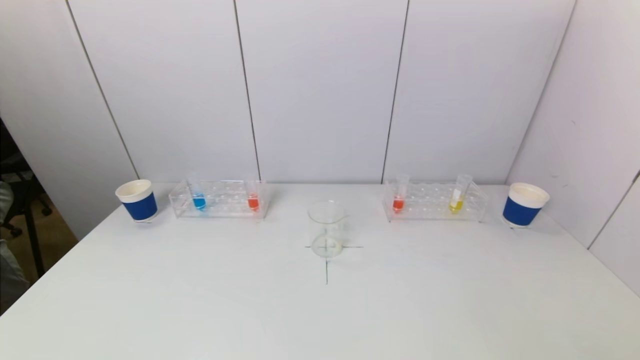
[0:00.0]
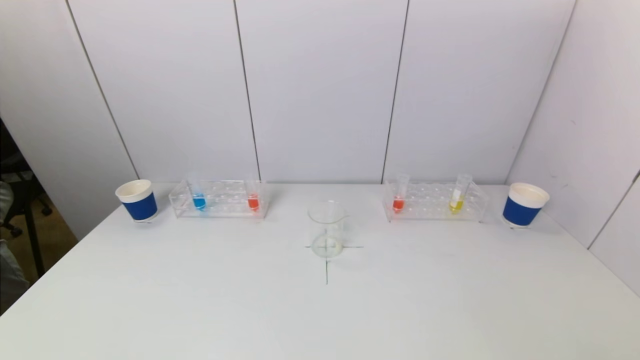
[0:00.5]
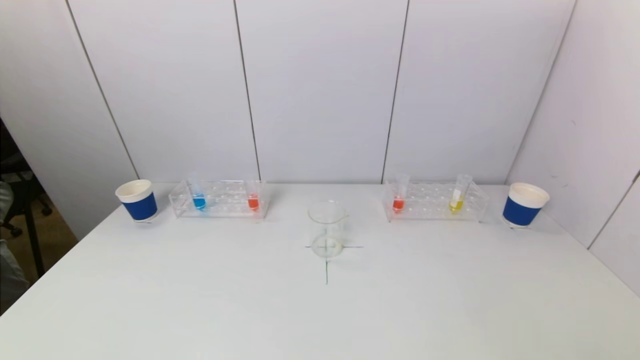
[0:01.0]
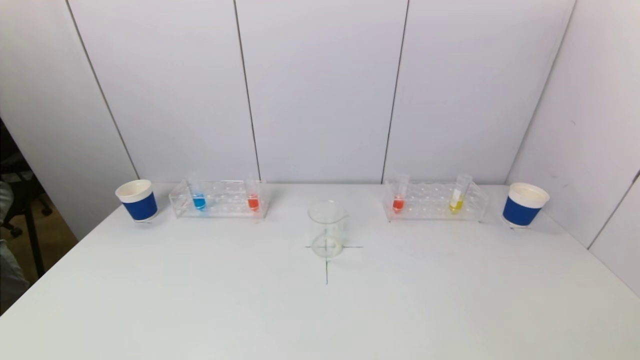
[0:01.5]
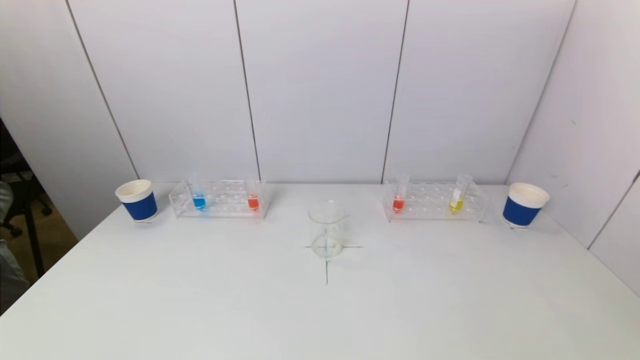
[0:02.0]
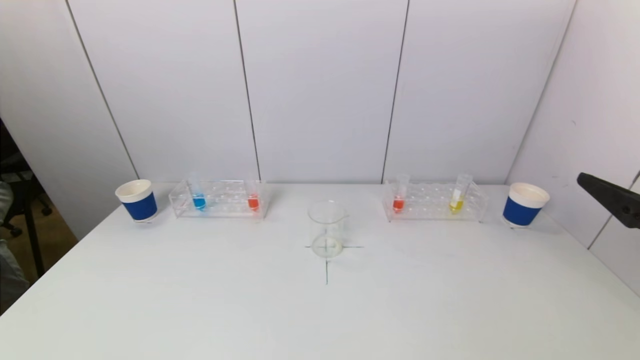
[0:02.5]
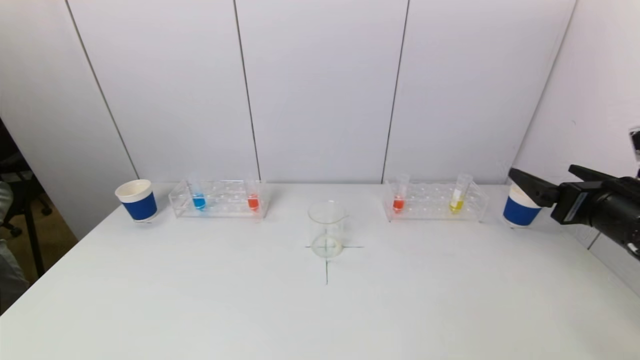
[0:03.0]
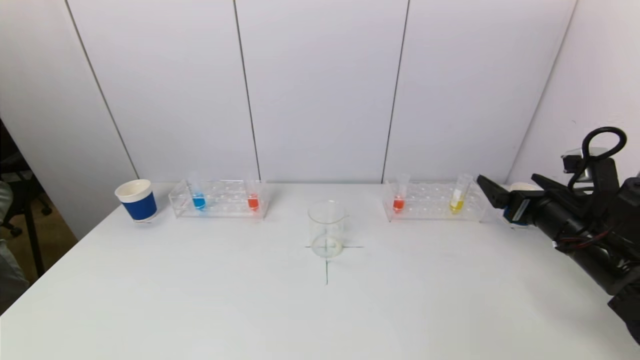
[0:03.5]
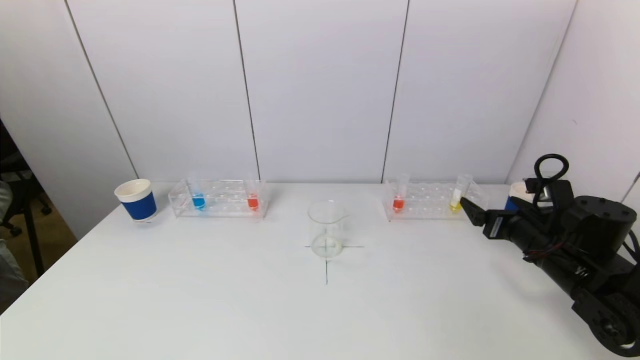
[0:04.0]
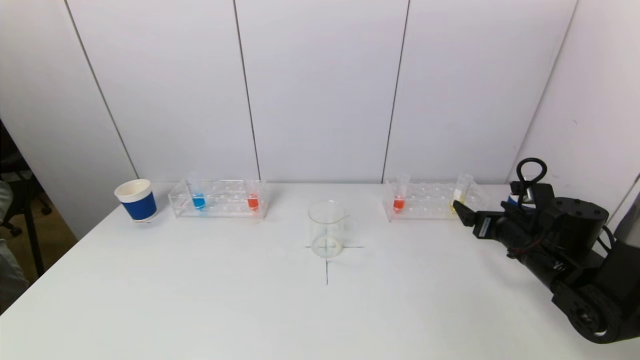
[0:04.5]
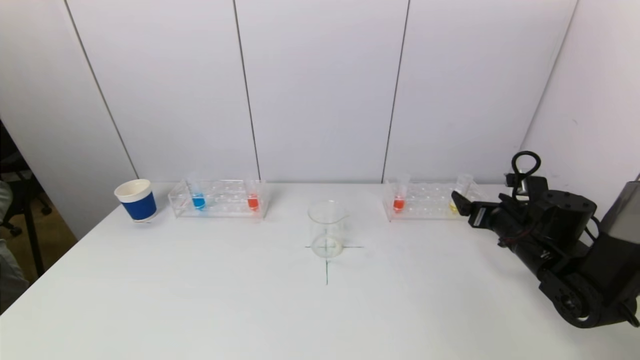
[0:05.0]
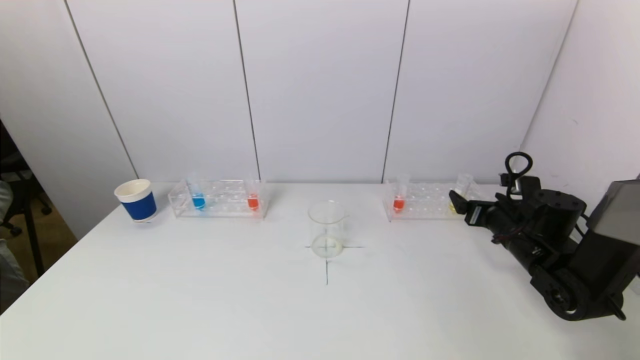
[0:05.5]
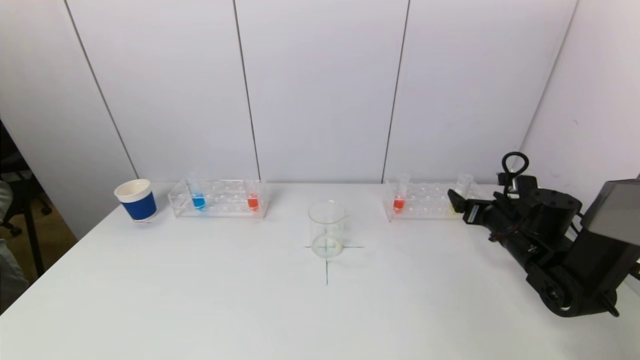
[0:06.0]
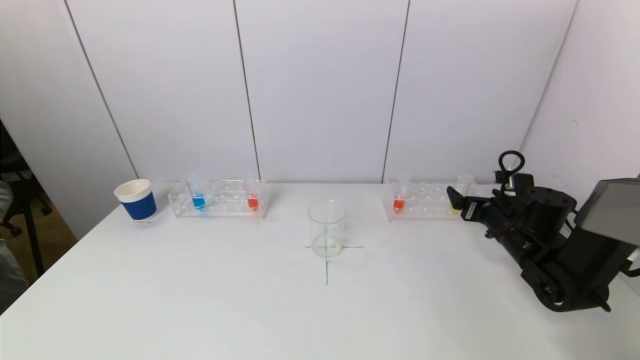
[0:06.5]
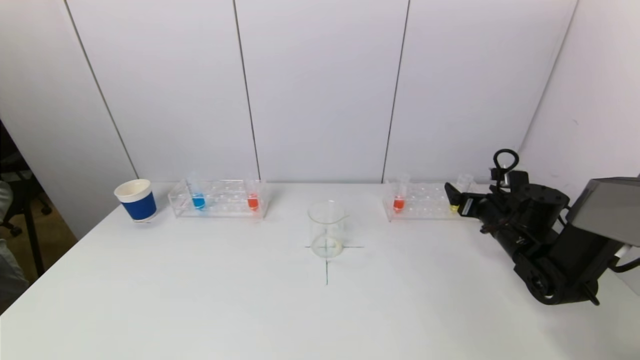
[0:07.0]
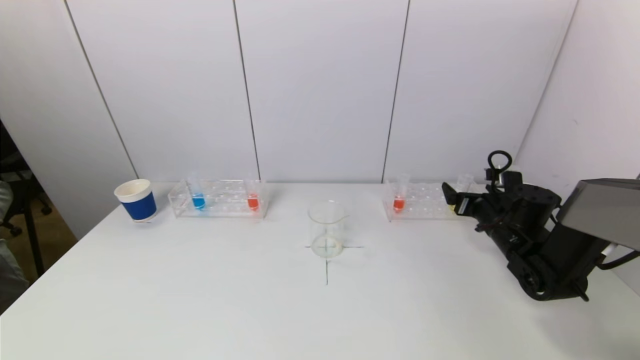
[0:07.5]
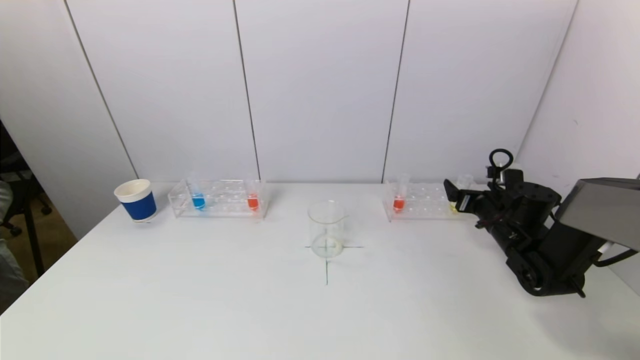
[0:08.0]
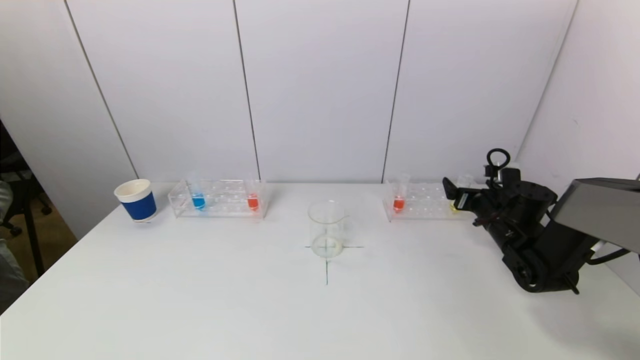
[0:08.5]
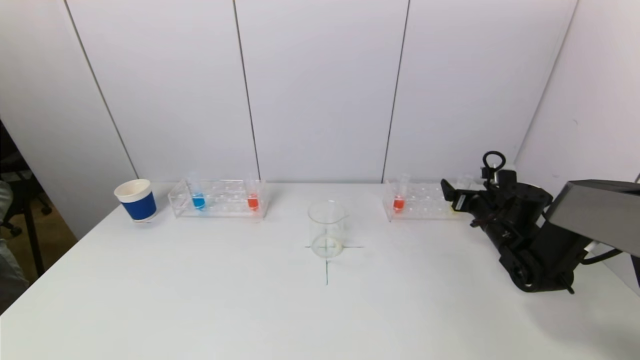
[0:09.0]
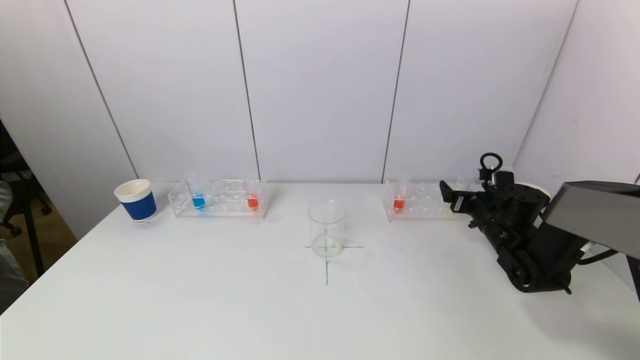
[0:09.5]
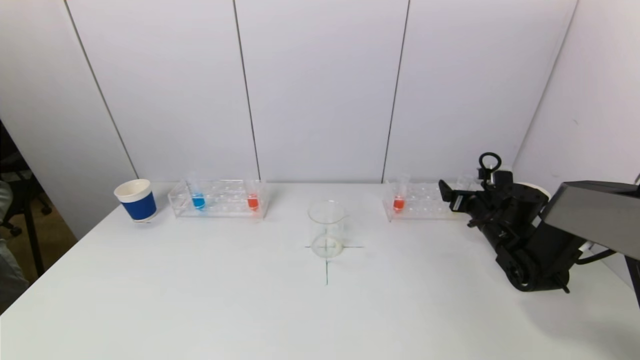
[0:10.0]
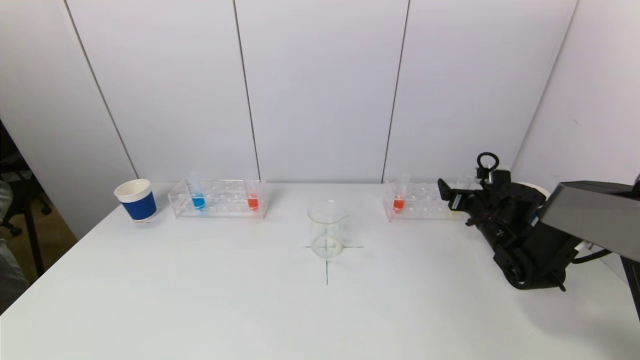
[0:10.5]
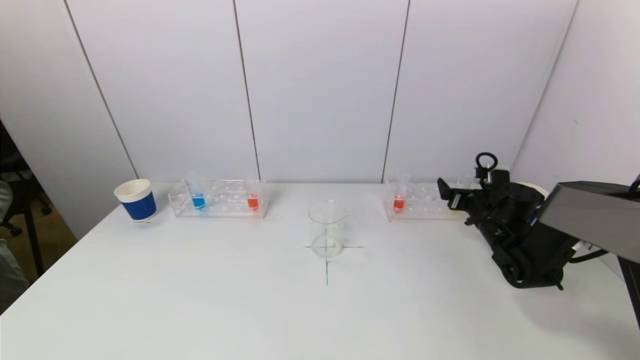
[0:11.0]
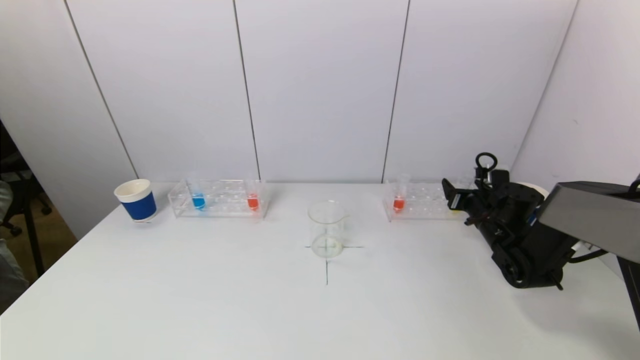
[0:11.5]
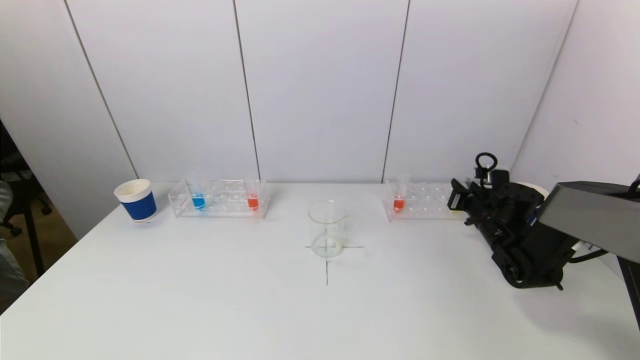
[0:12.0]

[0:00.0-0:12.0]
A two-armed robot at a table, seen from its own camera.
Task of the whole recording: pick up a test tube with pigment on left test tube rack and a test tube with pigment on right test tube rack by grippers and pour them into the beaker.
0:02.0 to 0:04.0: The right gripper travels forward and downward by about 30 cm.
0:04.0 to 0:06.0: The right gripper heads forward, covering approximately 5 cm.
0:06.0 to 0:08.0: The grippers stay close to where they were, moving slightly.
0:08.0 to 0:10.0: There are only small adjustments of the grippers.
0:10.0 to 0:12.0: The right gripper closes up.

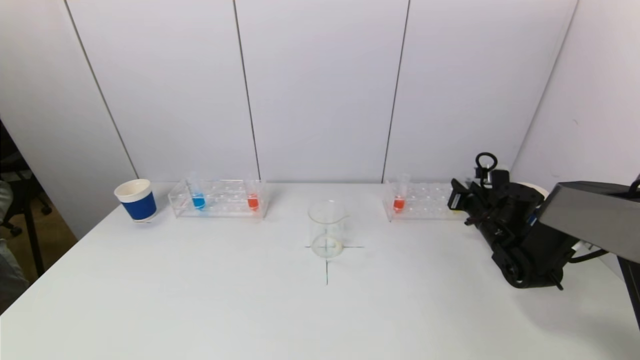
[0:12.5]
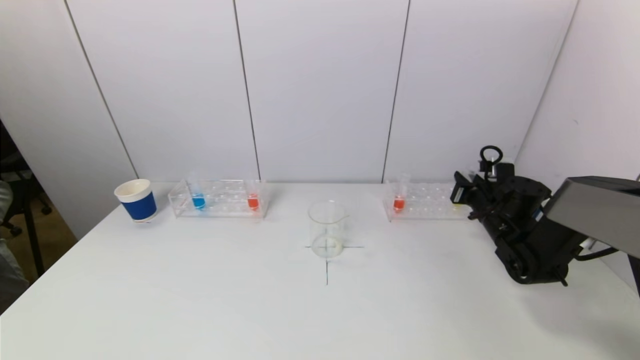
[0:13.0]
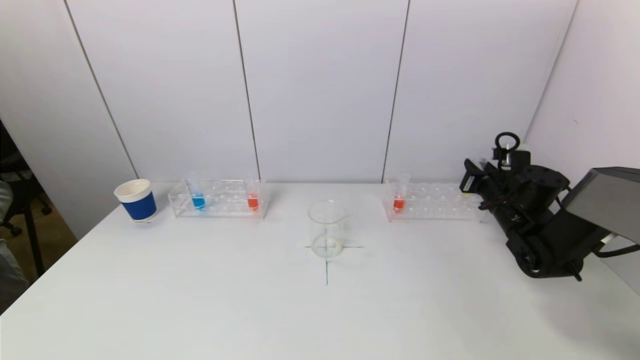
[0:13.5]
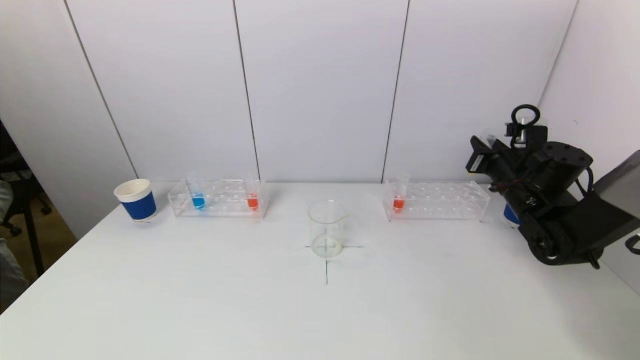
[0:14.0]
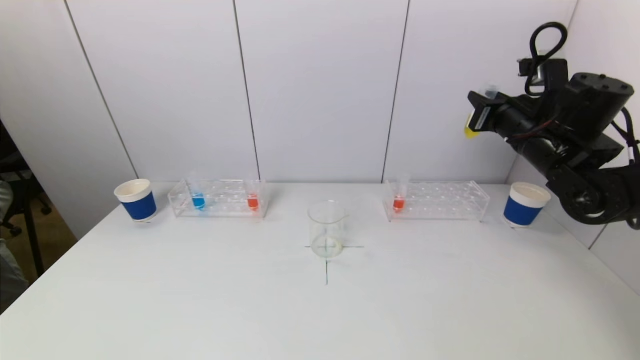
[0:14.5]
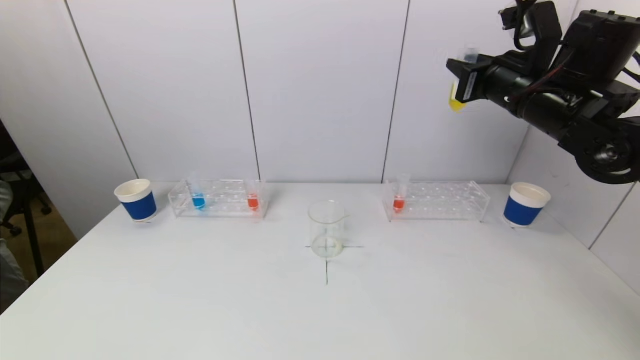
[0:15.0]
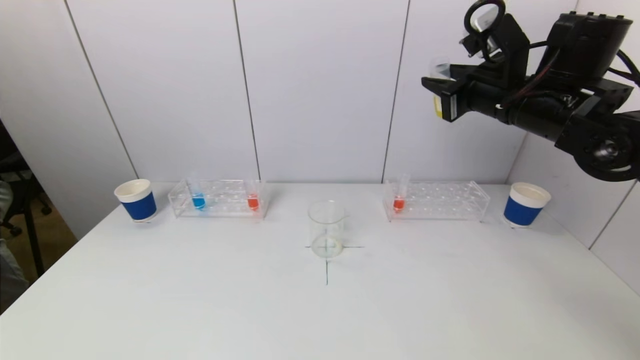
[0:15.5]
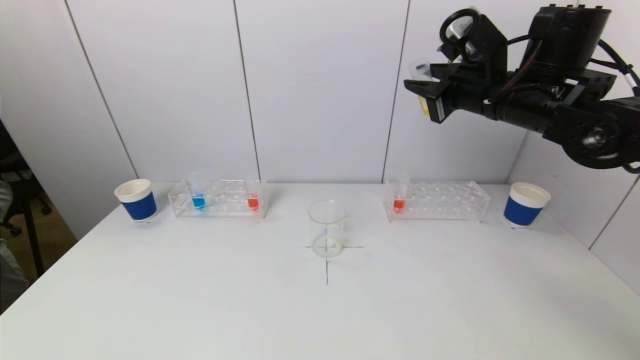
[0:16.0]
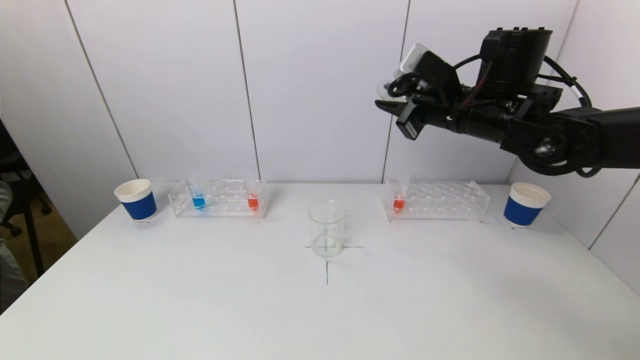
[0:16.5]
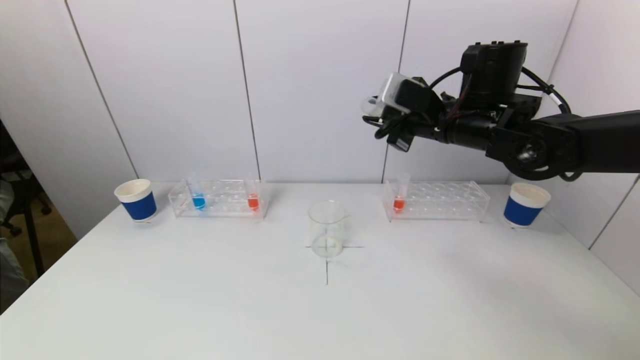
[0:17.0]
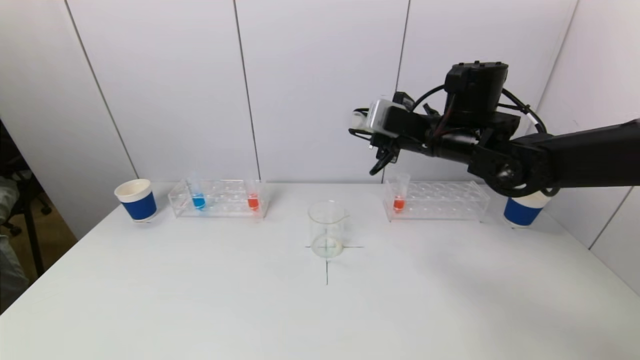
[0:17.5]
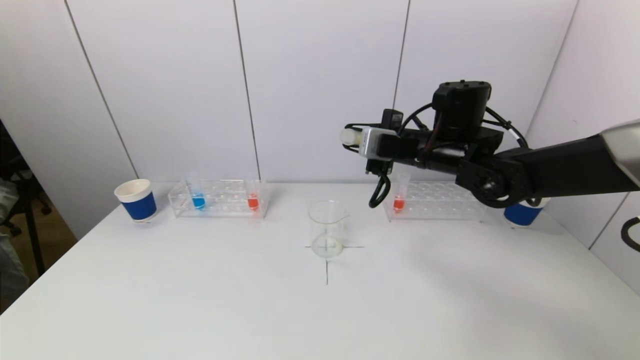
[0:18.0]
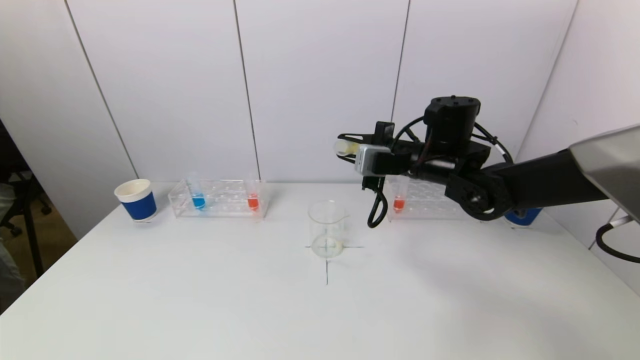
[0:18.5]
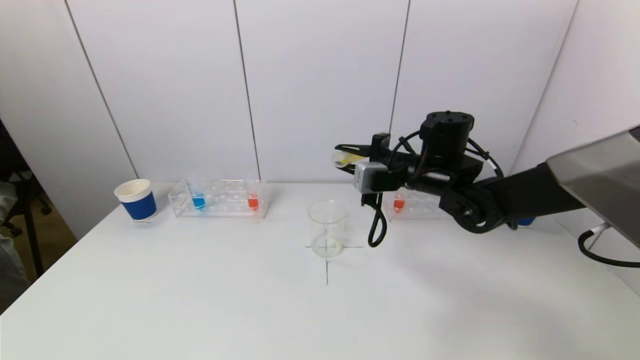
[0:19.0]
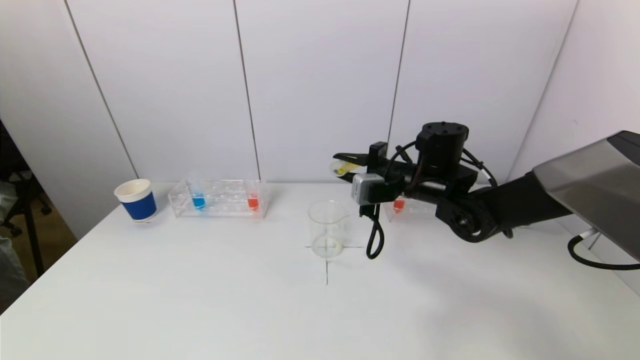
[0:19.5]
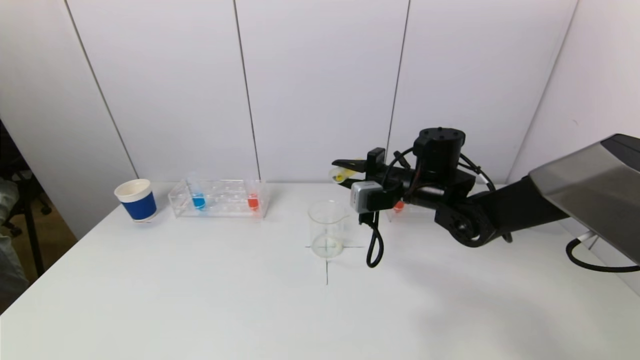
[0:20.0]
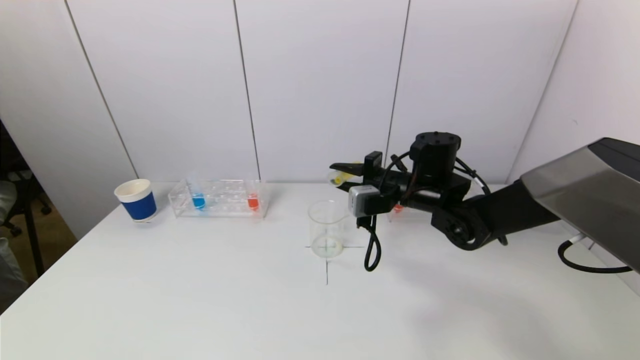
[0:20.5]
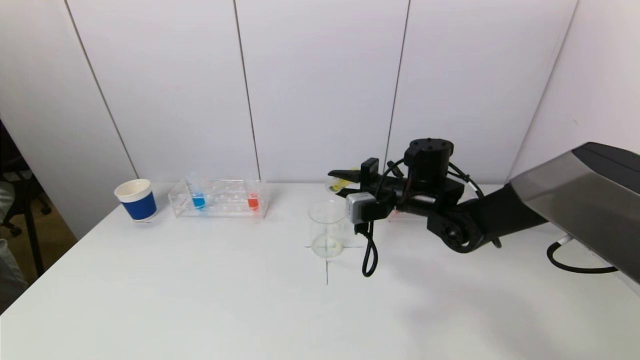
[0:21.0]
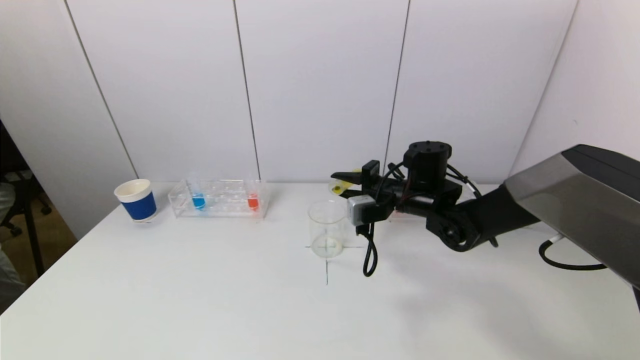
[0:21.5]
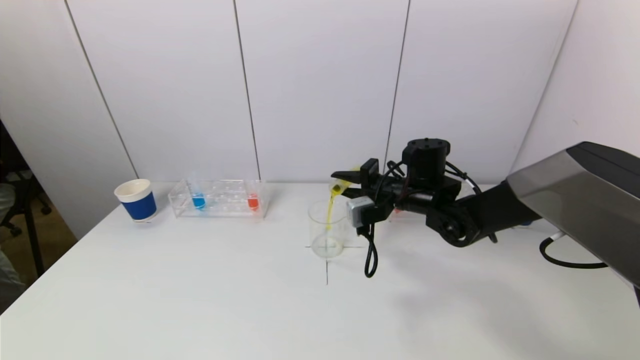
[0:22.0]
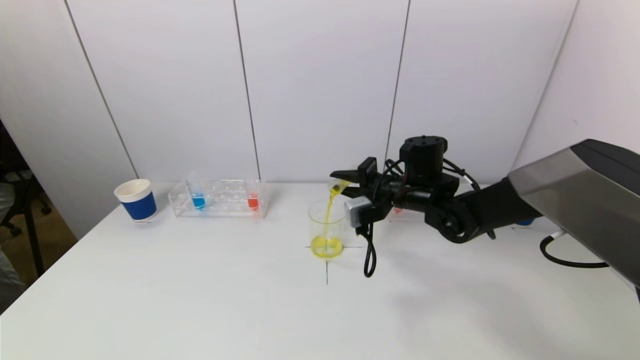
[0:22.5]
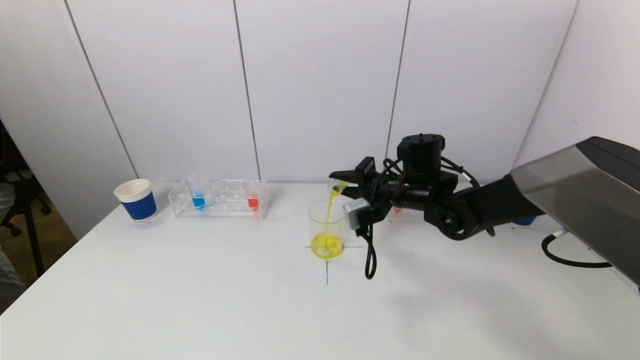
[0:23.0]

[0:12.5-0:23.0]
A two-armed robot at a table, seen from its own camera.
Task of the whole recording: pick up a test tube with pigment on left test tube rack and a test tube with pigment on right test tube rack by grippers and pour them into the beaker.
0:12.5 to 0:14.5: The right gripper moves upward, about 20 cm.
0:14.5 to 0:16.5: The right gripper travels to the left by some 10 cm.
0:16.5 to 0:19.0: The right gripper travels downward by some 10 cm.
0:19.0 to 0:23.0: There are only small adjustments of the grippers.
